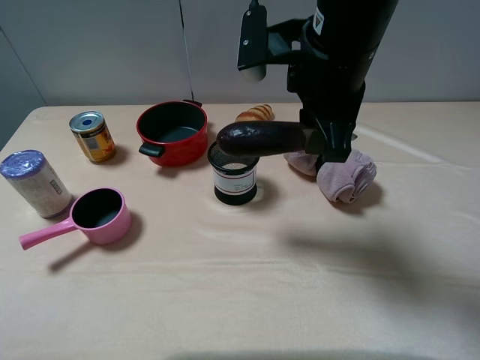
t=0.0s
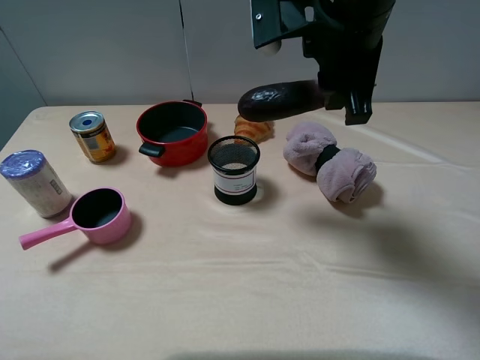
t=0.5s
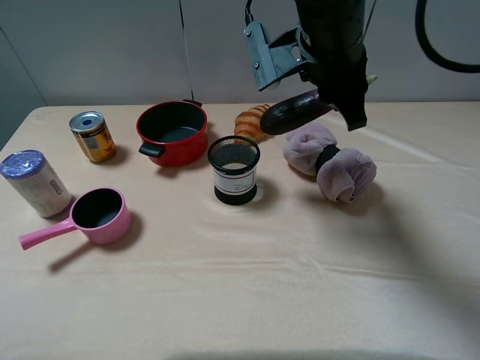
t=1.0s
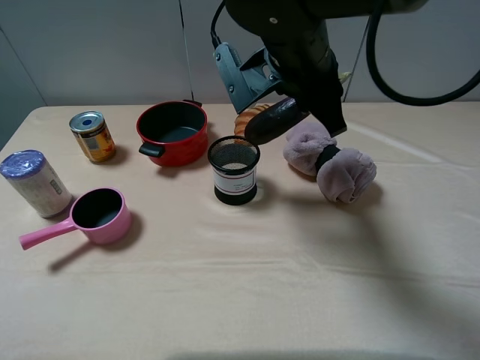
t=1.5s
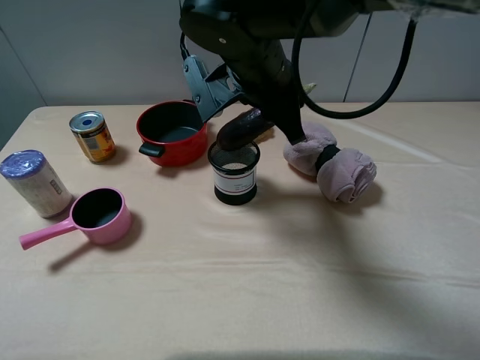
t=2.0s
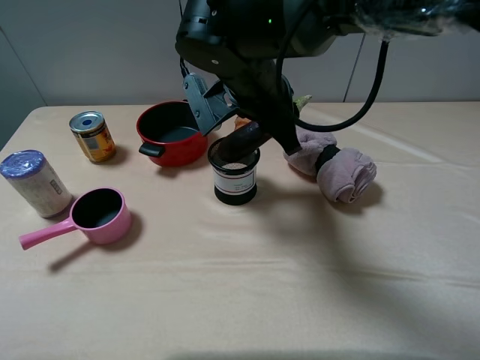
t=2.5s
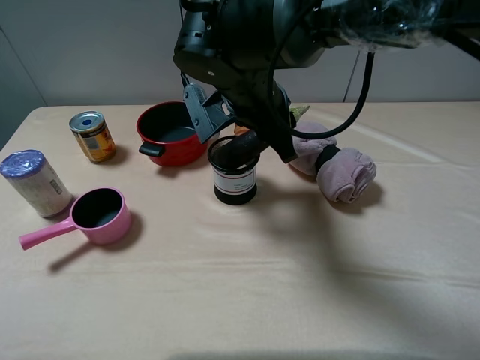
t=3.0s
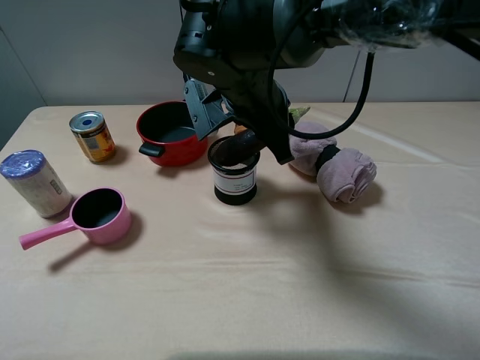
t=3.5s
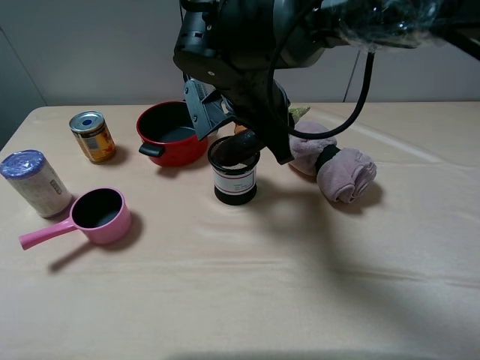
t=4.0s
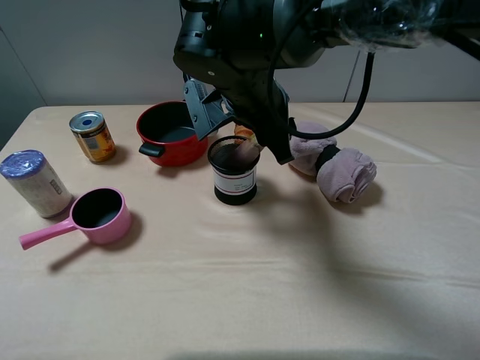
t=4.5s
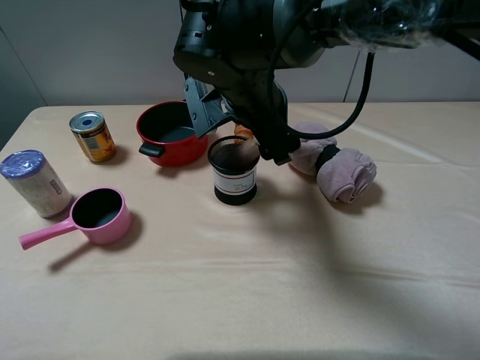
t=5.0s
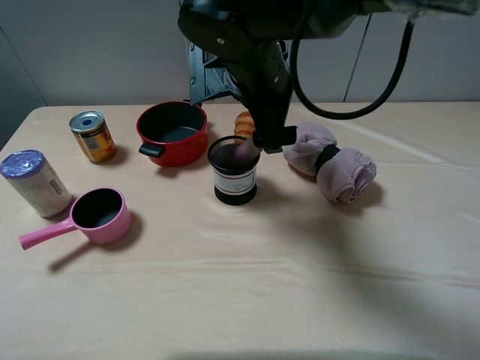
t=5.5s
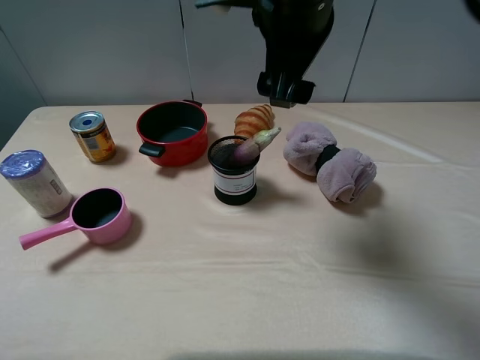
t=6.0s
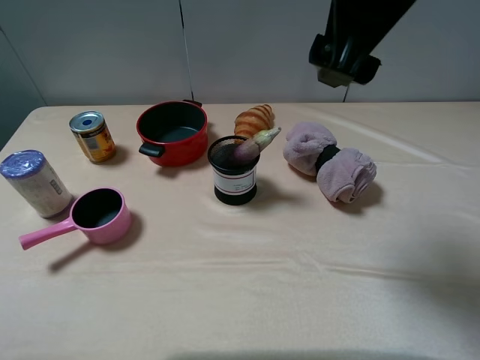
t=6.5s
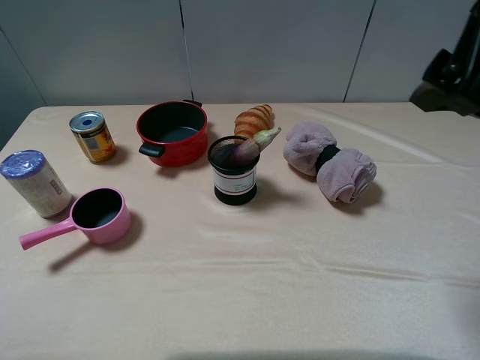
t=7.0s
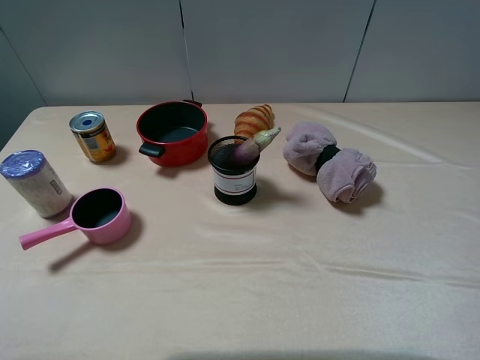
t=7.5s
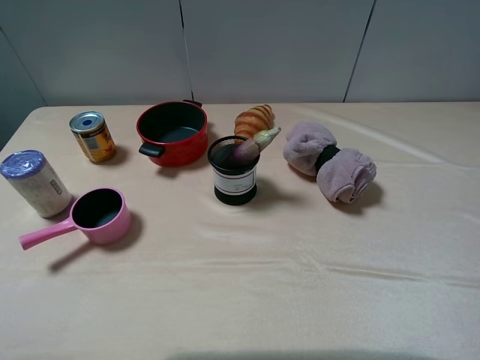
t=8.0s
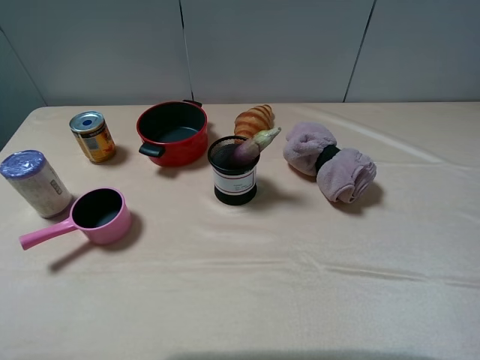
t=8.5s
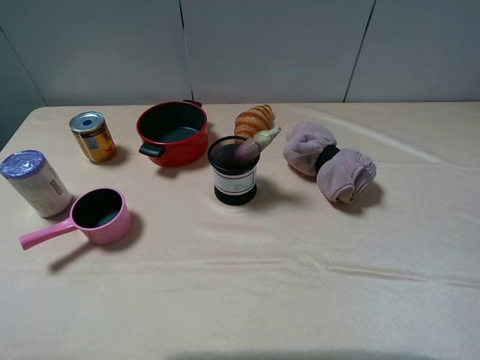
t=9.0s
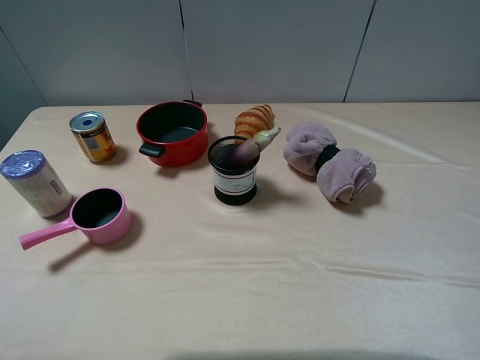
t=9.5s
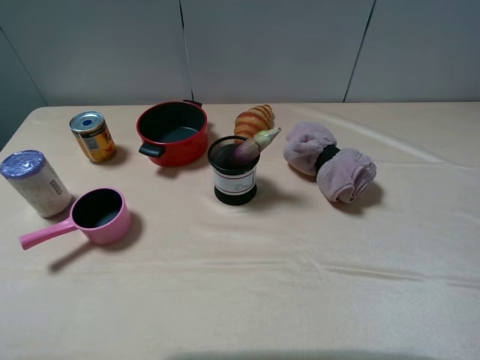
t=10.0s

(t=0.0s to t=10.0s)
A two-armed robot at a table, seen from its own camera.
Task of the whole recording: pick up an item with a gripper and place it in a random container on the table.
Step, t=0.0s - t=4.5s: Place the eggplant into the pen container with the right gripper.
t=0.0s - t=2.0s: The right gripper travels to the left and downward by approximately 10 cm.
t=2.0s - t=4.0s: The grippers make only small movements.
t=4.0s - t=6.0s: The right gripper shifts roughly 15 cm upward, and opens.
t=6.0s - t=8.0s: The right gripper goes some 35 cm to the right and backward.

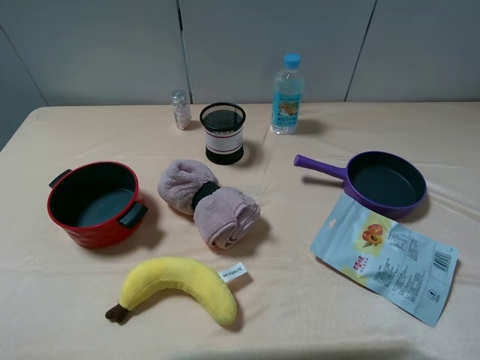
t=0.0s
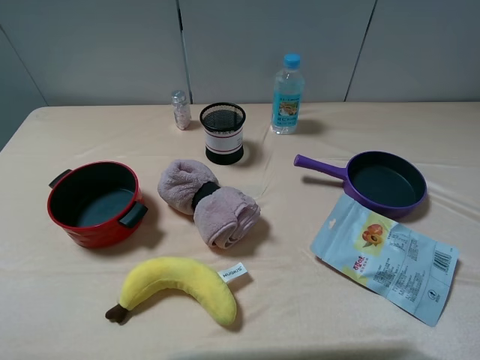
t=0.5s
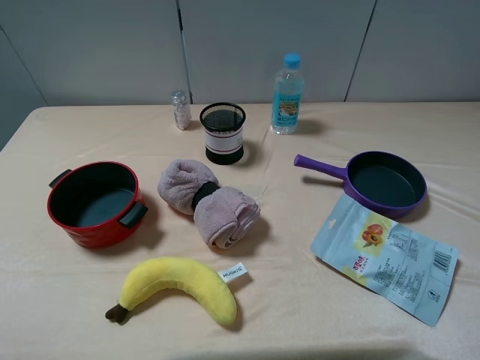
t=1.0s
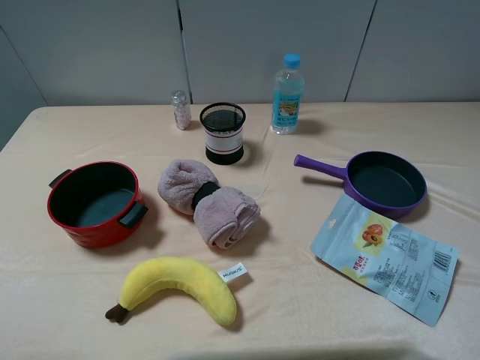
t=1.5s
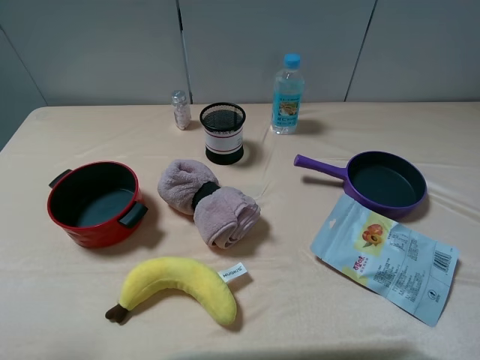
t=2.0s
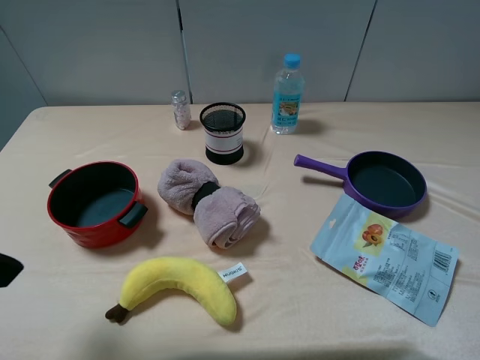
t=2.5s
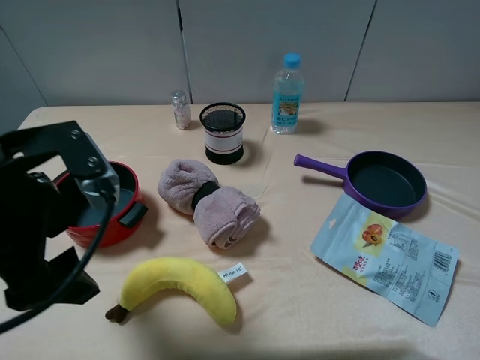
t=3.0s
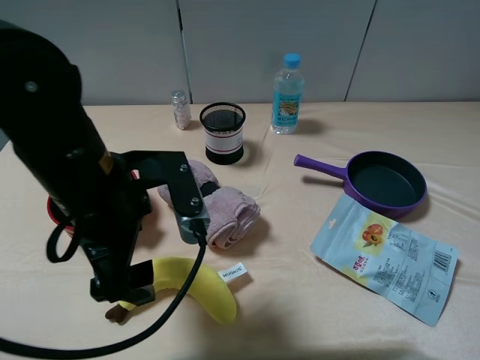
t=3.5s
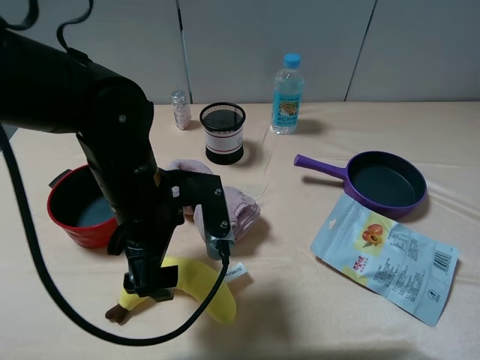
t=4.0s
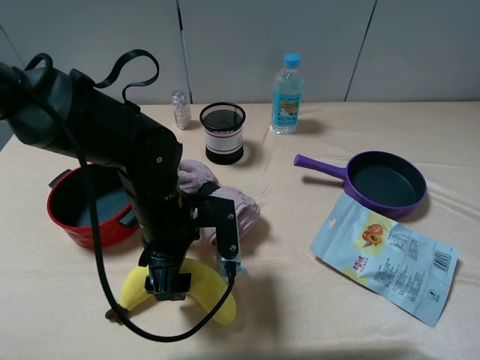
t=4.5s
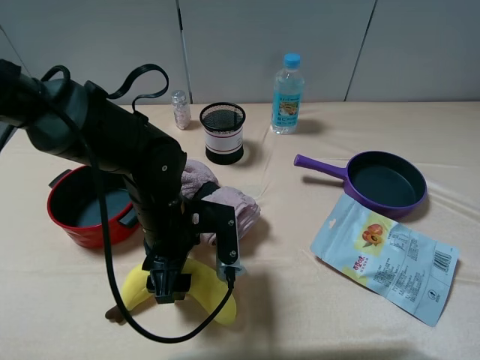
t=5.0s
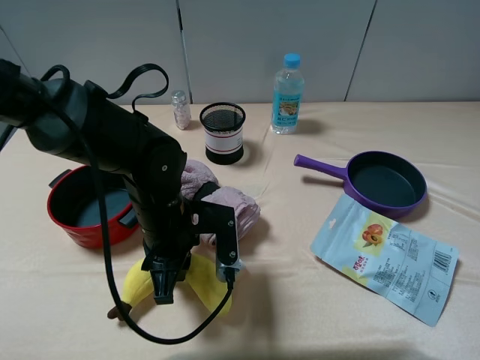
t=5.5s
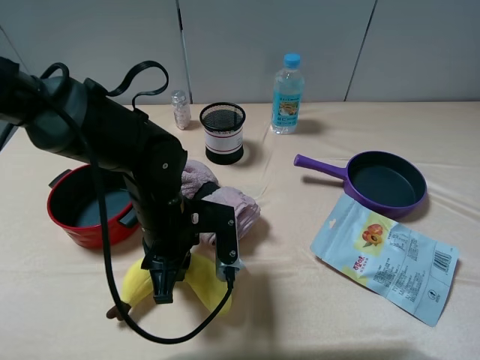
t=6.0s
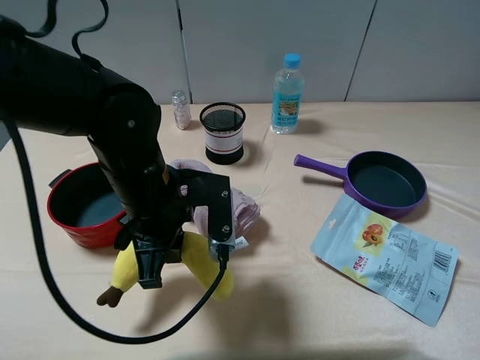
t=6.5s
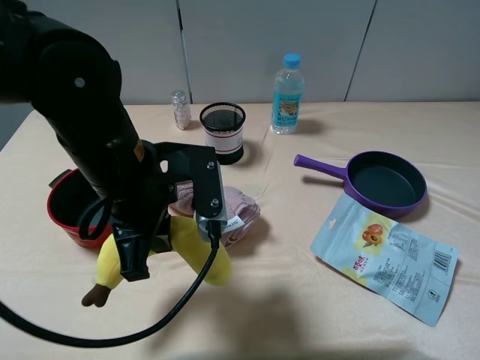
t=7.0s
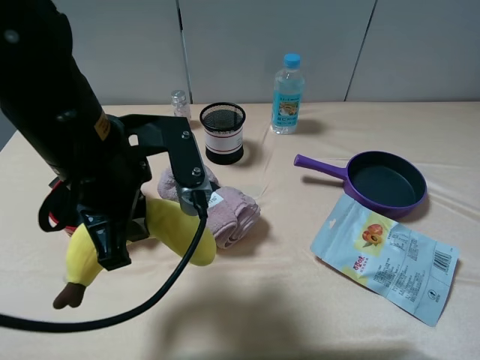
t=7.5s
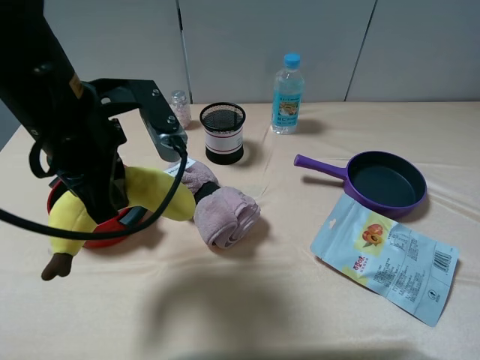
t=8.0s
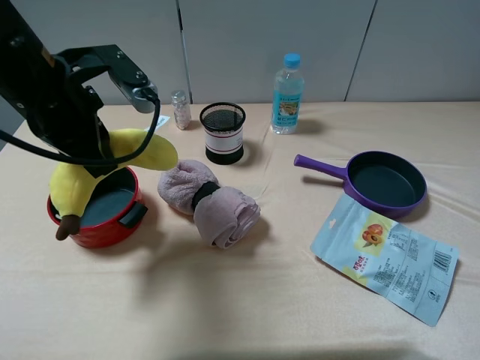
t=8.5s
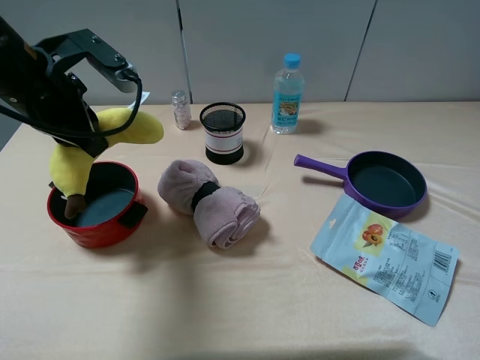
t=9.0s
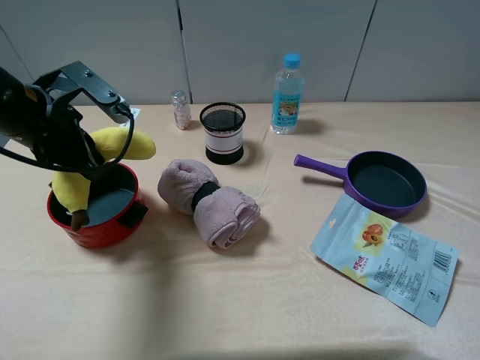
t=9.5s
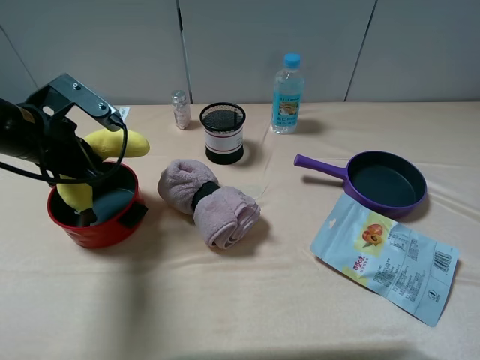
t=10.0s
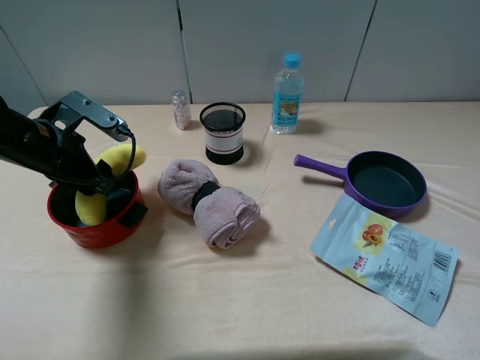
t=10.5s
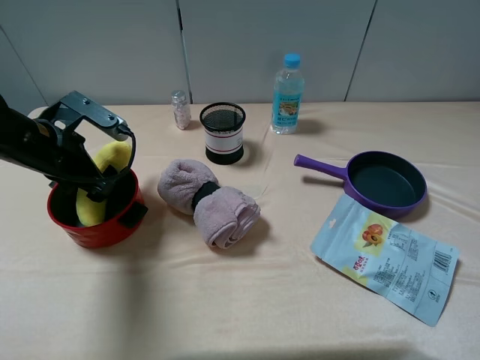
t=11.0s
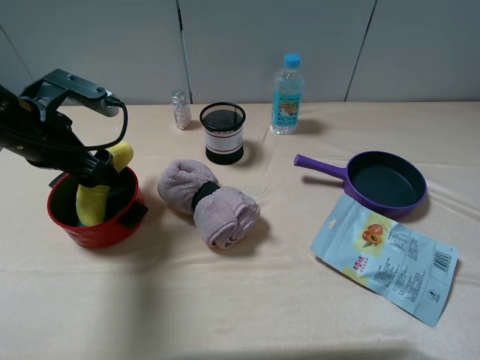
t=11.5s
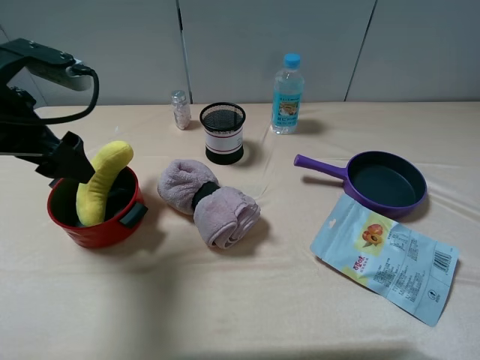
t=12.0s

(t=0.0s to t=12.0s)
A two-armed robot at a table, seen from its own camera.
Task of the whole recording: pick up an item with a gripper and place it in a random container on the table.
Step, t=0.0s - t=5.5s: Grasp the banana with the left gripper.
Step, t=6.0s - t=12.0s: Place the banana into the red pot with the left gripper.
t=2.0s - t=4.0s: The left gripper heads to the right, forward and downward, covering about 30 cm.
t=4.0s - t=6.0s: The left gripper moves downward, about 5 cm, and closes.
t=6.0s - t=8.0s: The left gripper is displaced upward by approximately 15 cm.
t=8.0s - t=10.0s: The left gripper shifts approximately 15 cm to the left, downward and forward.
t=10.0s - t=12.0s: The left gripper shifts roughly 5 cm upward, and opens its fingers.

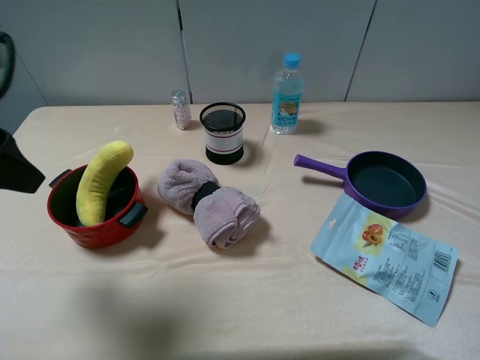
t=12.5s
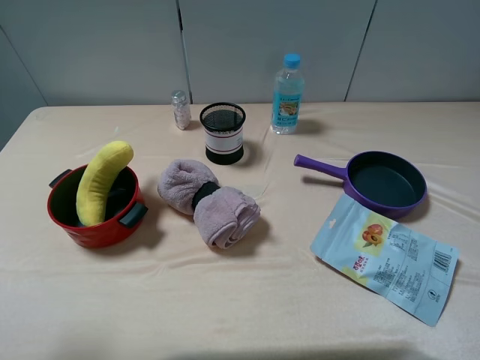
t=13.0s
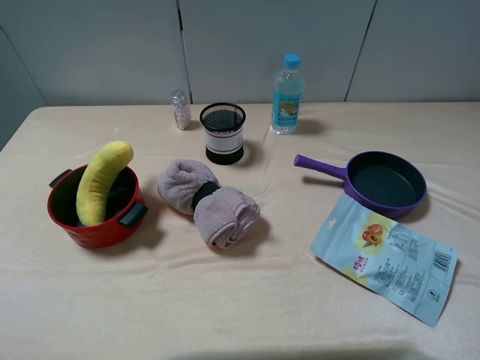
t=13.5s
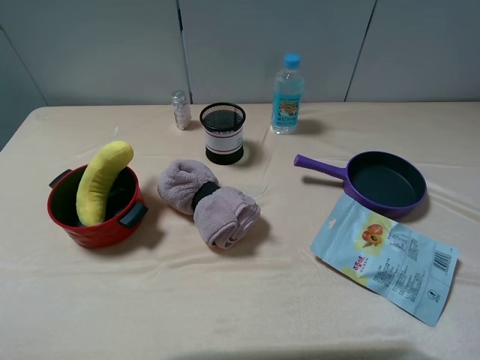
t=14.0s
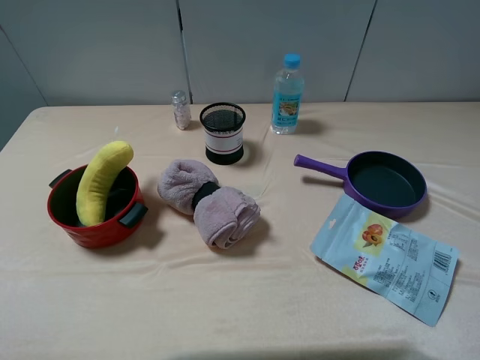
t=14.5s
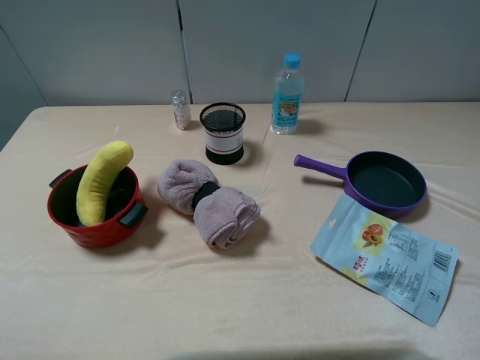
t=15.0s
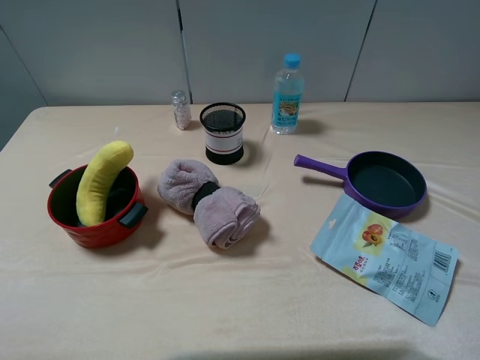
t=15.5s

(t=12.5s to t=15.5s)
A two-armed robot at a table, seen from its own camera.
Task of the whole recording: pick up an item with a gripper and place it in a random container on the table.
t=12.5s - t=14.0s: The left gripper goes about 20 cm backward.
